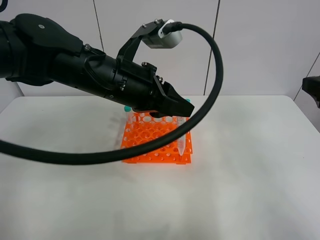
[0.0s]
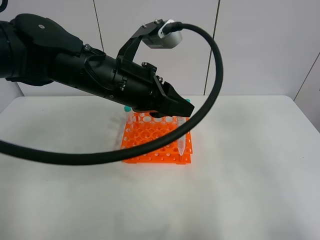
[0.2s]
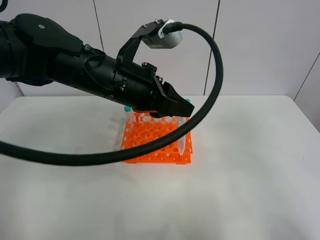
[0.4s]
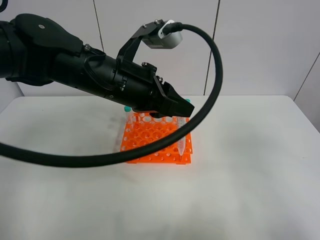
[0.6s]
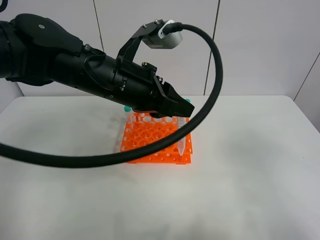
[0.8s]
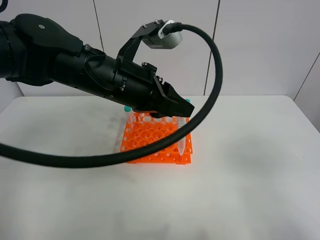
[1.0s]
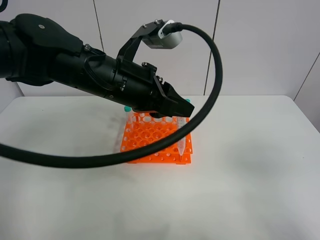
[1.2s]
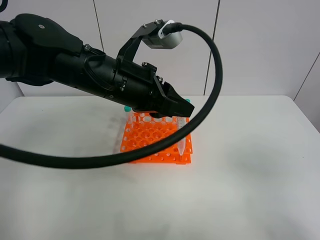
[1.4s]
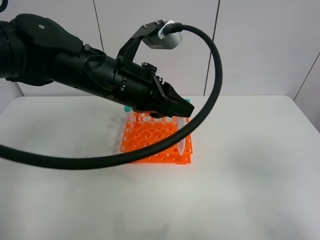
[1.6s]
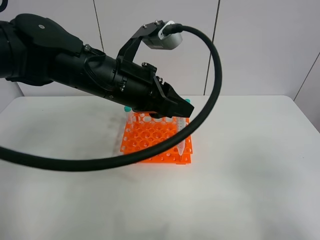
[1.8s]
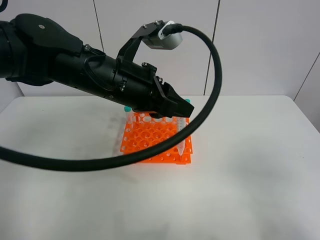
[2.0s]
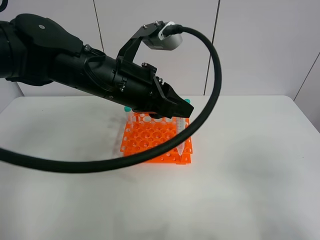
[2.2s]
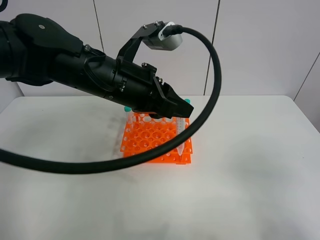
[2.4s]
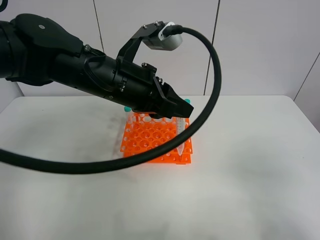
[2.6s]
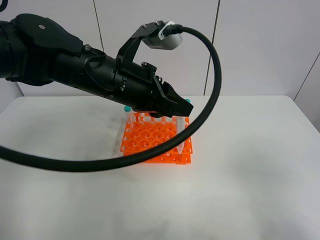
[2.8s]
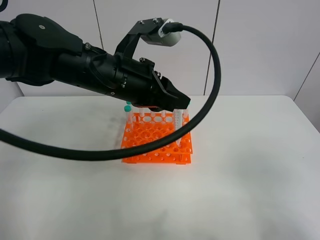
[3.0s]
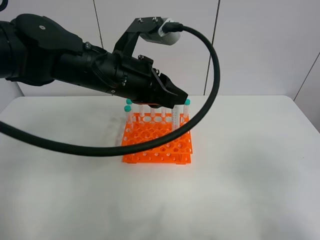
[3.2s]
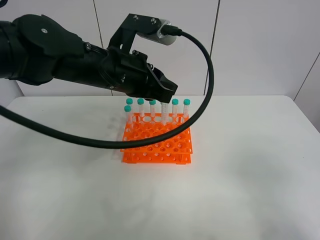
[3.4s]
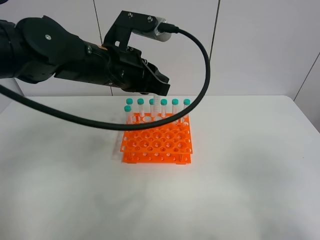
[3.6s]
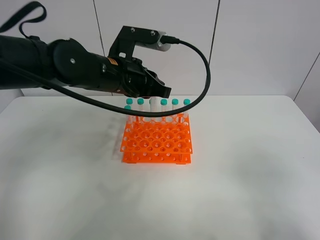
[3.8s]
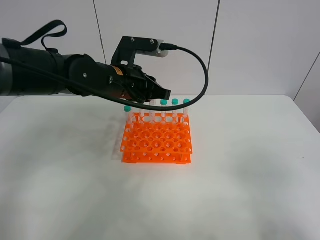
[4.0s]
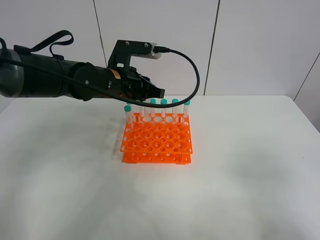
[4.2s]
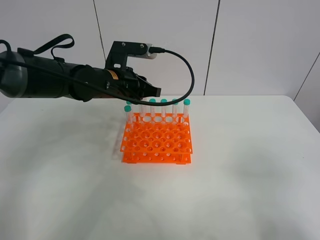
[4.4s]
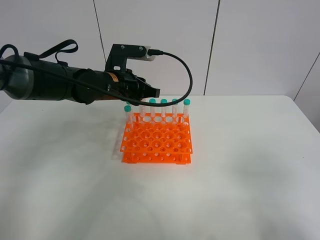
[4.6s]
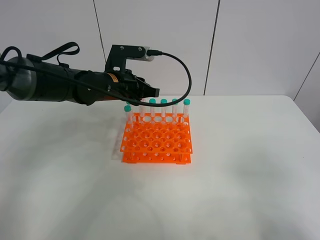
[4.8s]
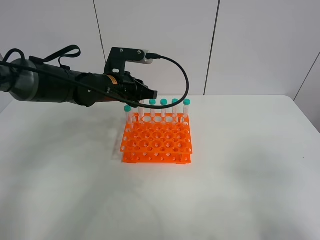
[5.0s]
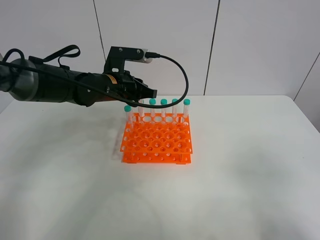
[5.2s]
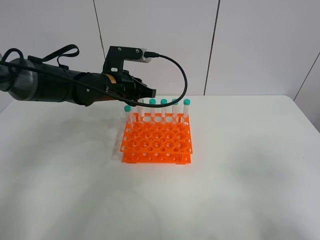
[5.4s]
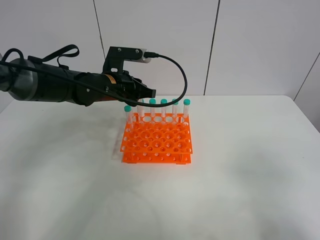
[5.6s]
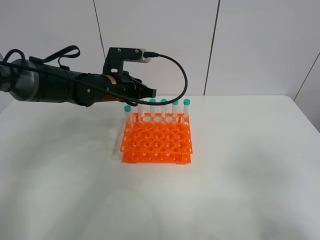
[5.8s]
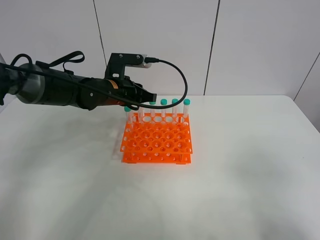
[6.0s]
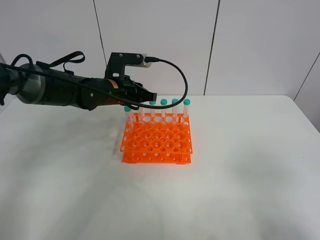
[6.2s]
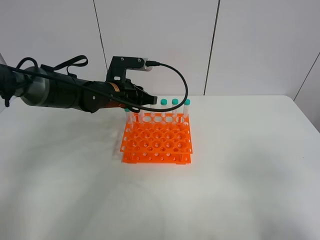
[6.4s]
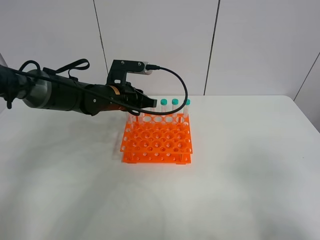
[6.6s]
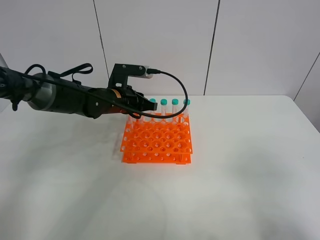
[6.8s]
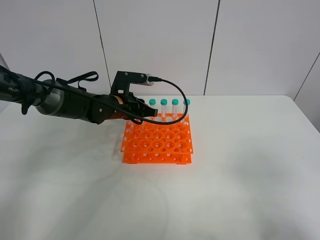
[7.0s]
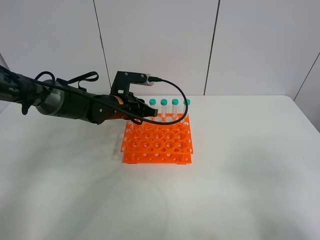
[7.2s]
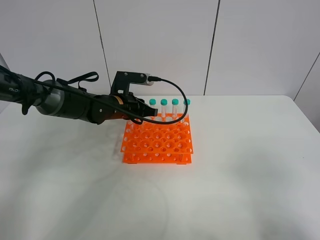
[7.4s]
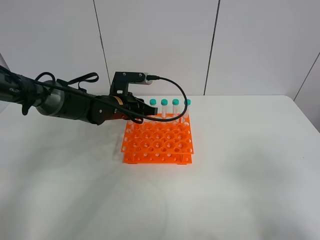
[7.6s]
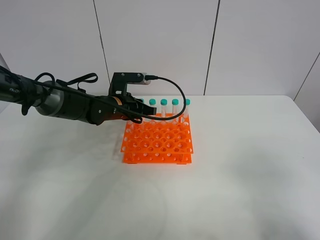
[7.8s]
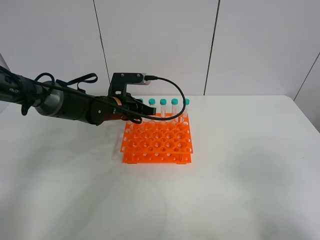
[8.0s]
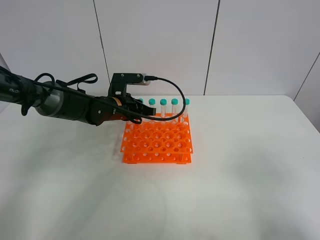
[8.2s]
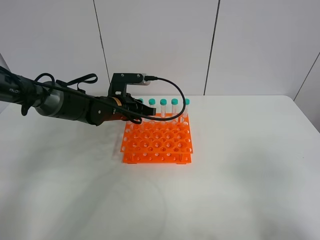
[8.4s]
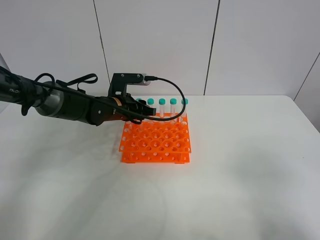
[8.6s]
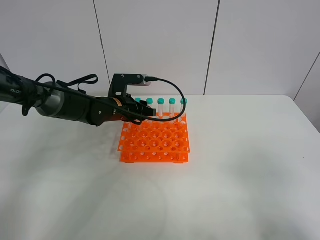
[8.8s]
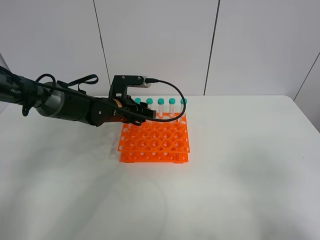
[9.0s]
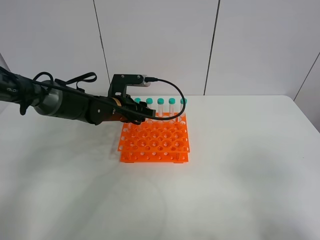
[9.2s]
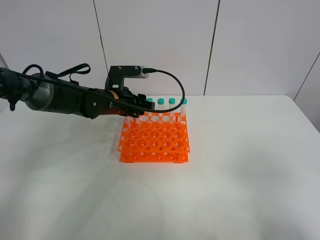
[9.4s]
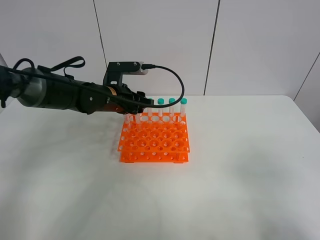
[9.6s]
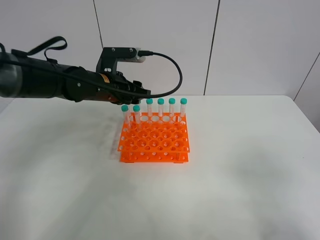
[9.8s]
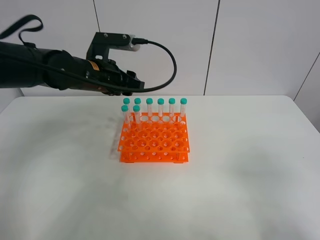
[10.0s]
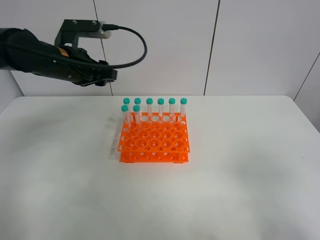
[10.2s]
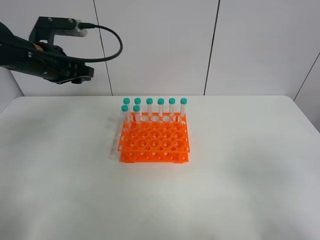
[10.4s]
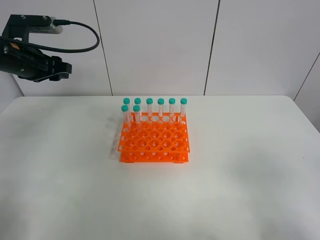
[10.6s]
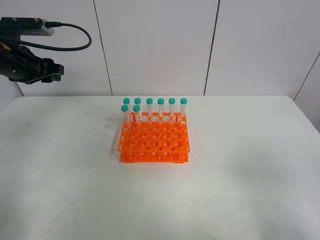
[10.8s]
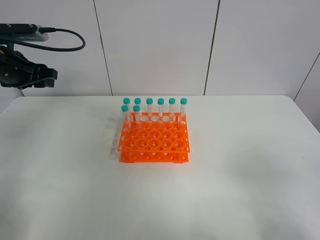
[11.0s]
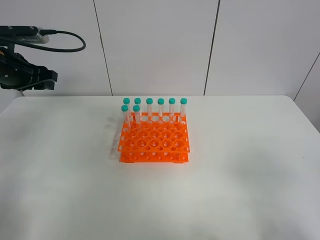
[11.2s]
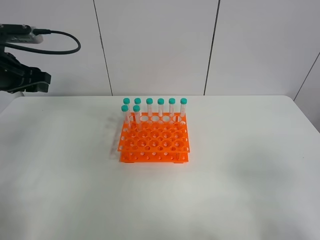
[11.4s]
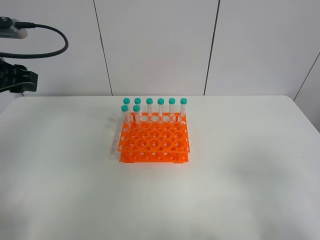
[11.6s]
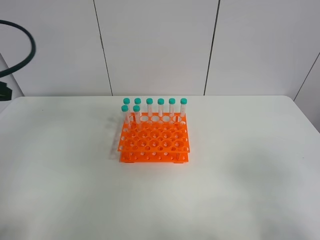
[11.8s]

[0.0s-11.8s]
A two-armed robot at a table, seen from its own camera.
Task of the whole recording: Put the test tube on the table back onto the test tube rack.
Step, 0.0s to 8.8s: Place the test tube on the test tube rack with the left gripper.
0.0s to 1.4s: The right gripper is displaced backward by roughly 20 cm.
1.4s to 3.0s: The grippers make only small movements.
3.0s to 4.4s: The left gripper shifts approximately 10 cm forward and downward.
4.4s to 6.0s: There are only small adjustments of the grippers.
6.0s to 7.4s: There are only small adjustments of the grippers.
7.4s to 8.8s: The left gripper opens up.
8.8s to 10.4s: The left gripper goes some 20 cm upward and to the left.
10.4s to 11.8s: The left gripper heads backward, covering approximately 15 cm.

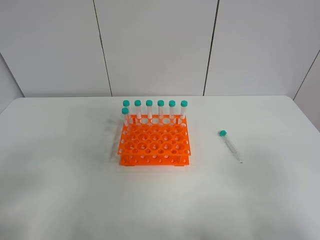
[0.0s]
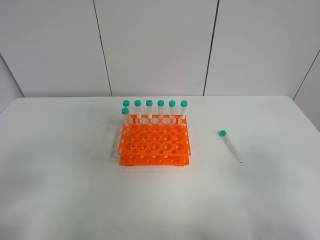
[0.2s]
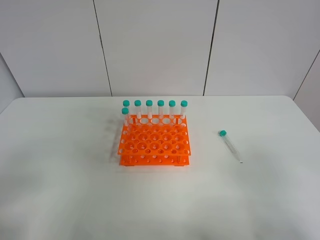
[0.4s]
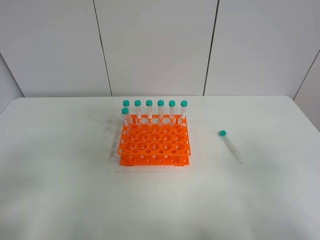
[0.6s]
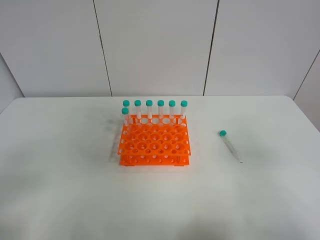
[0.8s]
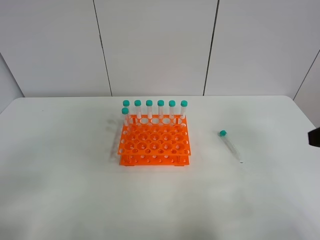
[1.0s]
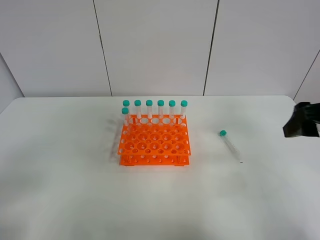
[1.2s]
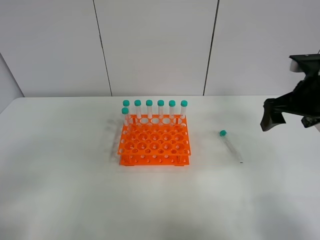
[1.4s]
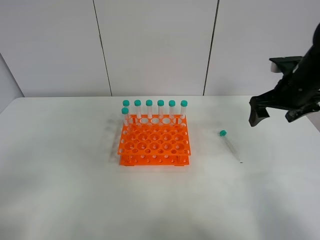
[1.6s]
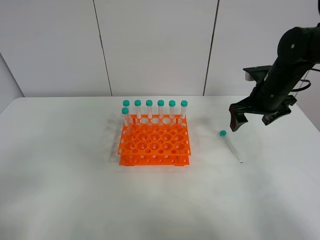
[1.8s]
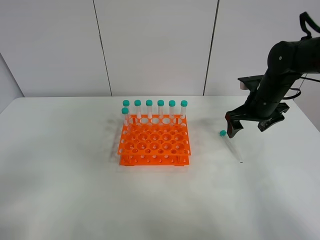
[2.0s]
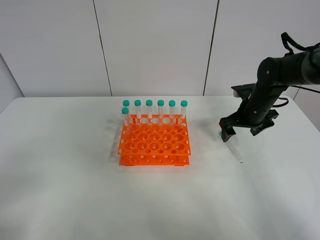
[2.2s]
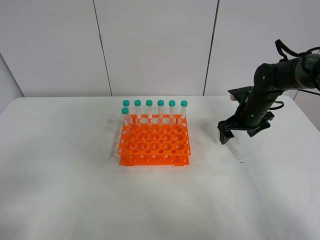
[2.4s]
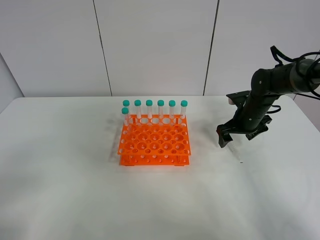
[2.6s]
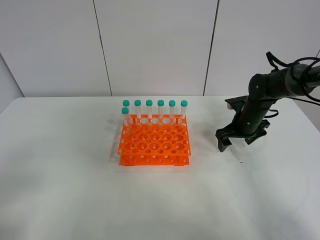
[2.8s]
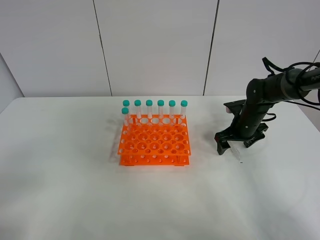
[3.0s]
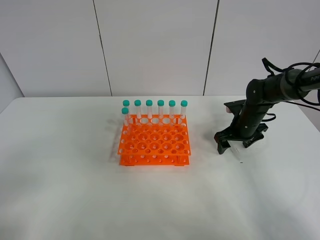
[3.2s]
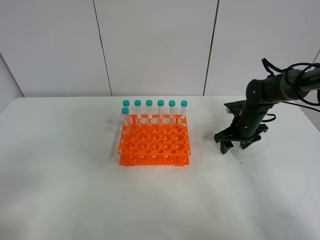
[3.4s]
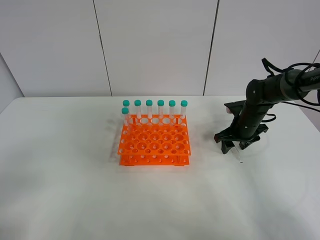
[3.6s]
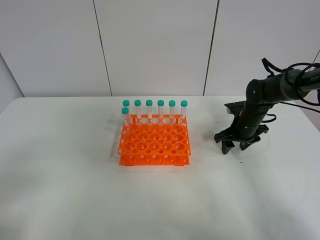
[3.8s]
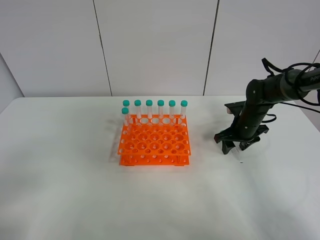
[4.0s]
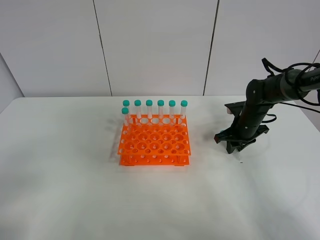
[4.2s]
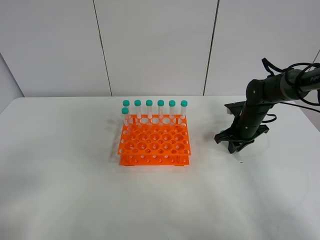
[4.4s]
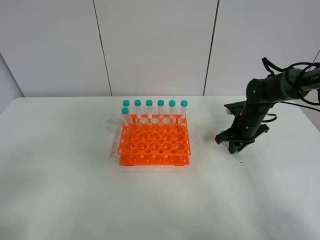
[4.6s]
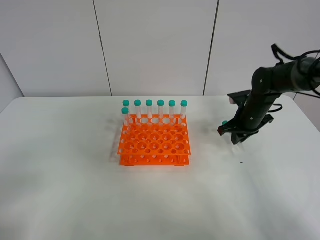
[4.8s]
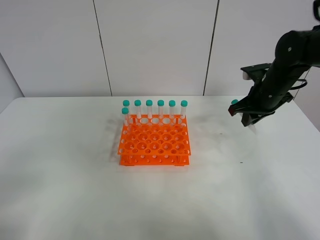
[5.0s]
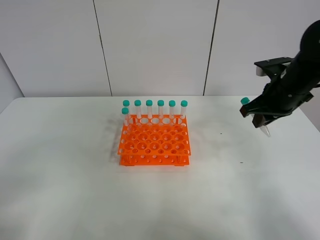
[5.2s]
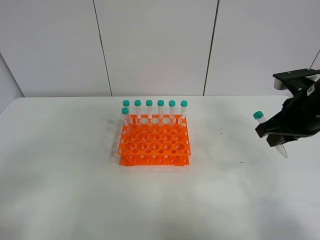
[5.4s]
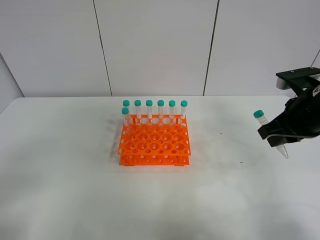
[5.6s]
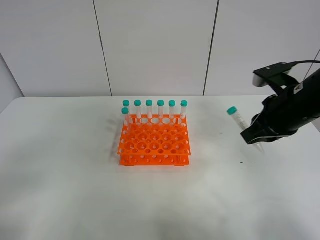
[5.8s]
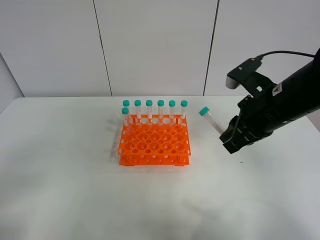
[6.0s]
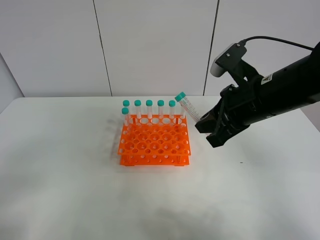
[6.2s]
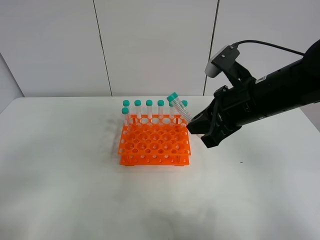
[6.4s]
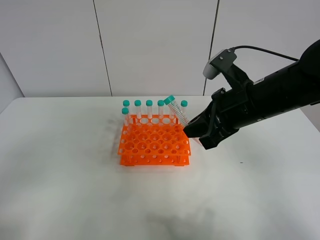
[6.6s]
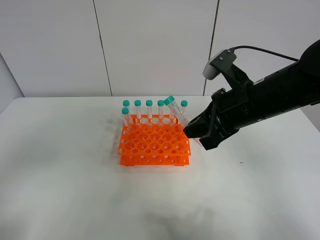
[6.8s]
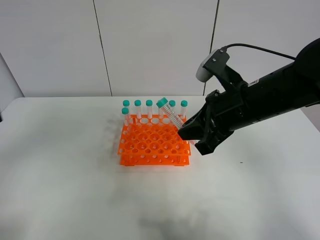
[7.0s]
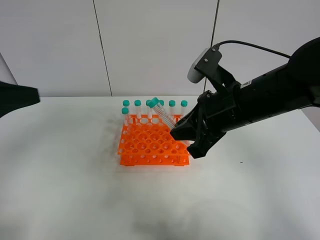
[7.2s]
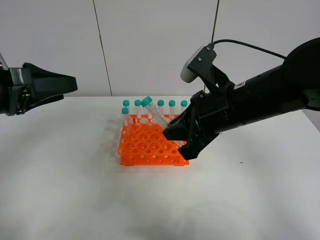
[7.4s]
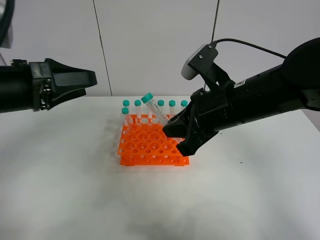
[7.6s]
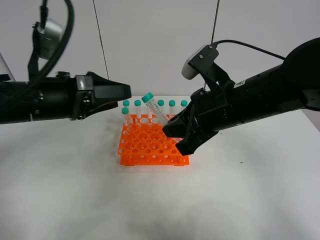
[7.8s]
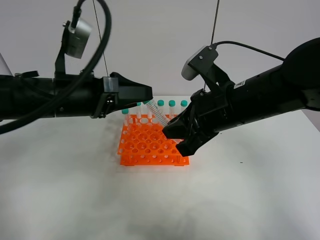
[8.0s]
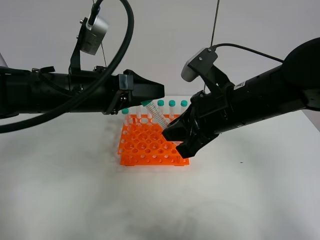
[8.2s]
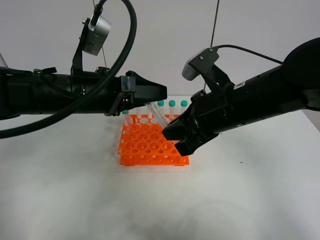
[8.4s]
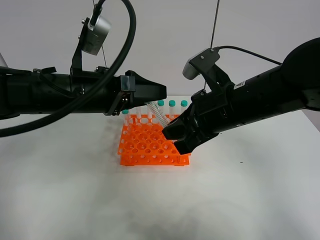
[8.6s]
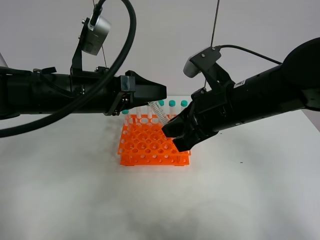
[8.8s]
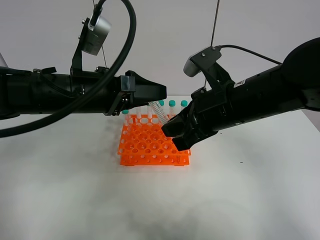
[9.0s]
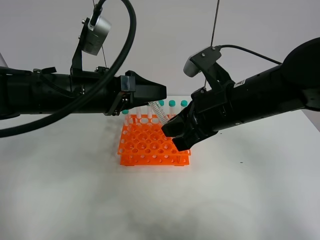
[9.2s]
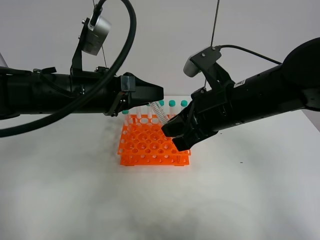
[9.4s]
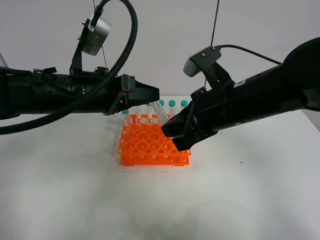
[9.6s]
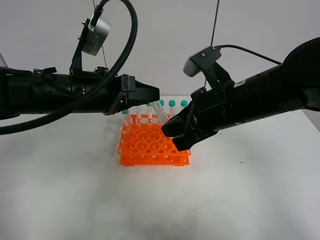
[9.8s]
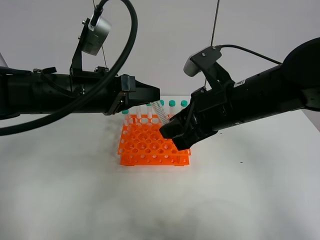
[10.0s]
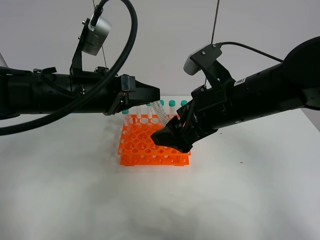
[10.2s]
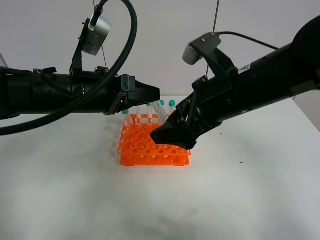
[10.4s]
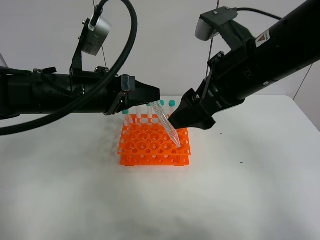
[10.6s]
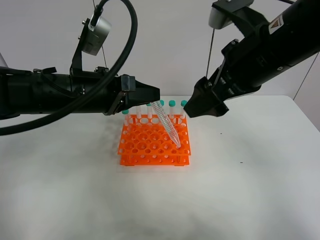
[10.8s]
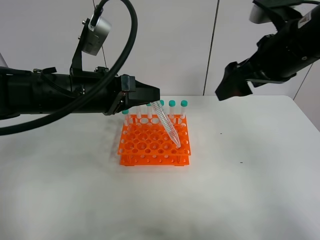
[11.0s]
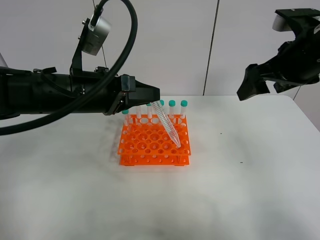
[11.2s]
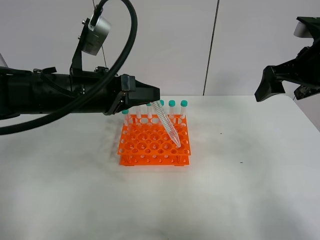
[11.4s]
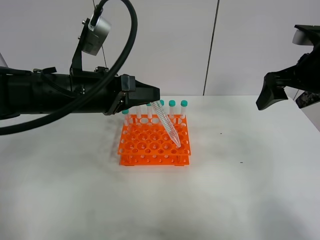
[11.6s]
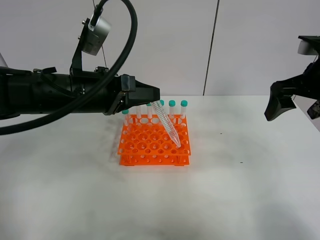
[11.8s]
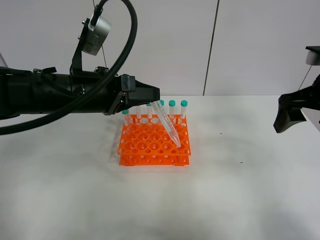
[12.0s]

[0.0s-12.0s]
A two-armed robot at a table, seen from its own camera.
Task of the whole recording: Put the test tube on the table back onto the test tube rack.
Step, 0.0s to 5.0s: Pick up the test tube with the right gripper.
Step, 5.2s to 10.8s: Move the test tube from the right gripper to the left gripper.
0.0s to 1.6s: The right gripper travels forward by some 35 cm.
1.6s to 3.0s: The right gripper travels downward and forward by roughly 15 cm.
3.0s to 4.4s: The right gripper closes up.
4.4s to 6.0s: The right gripper is displaced upward and backward by some 25 cm.
6.0s to 7.6s: The left gripper goes about 20 cm forward. Meanwhile the right gripper shifts some 5 cm to the left.
7.6s to 9.0s: The left gripper shifts some 10 cm to the right.
9.0s to 10.4s: The right gripper opens up, while the left gripper closes its fingers.
10.4s to 12.0s: The right gripper goes some 15 cm to the right.
